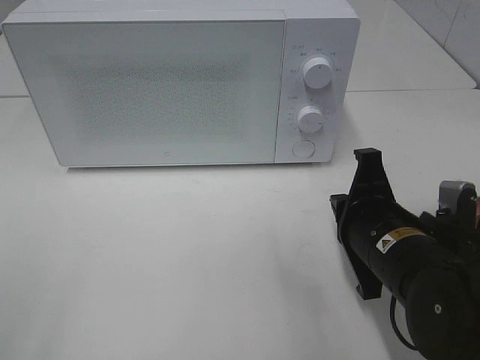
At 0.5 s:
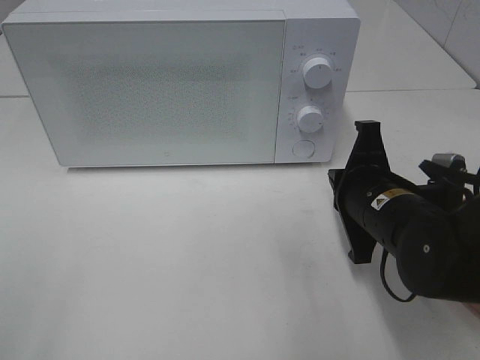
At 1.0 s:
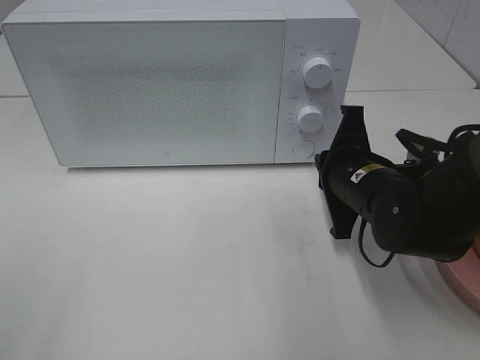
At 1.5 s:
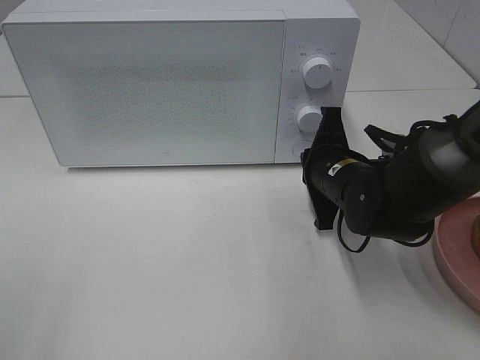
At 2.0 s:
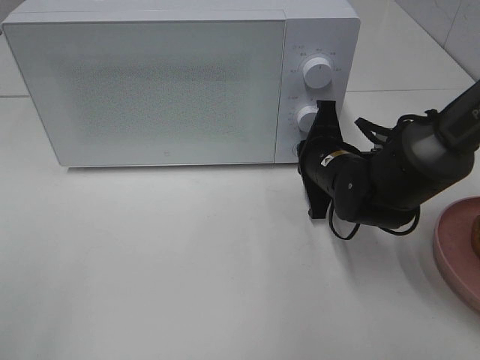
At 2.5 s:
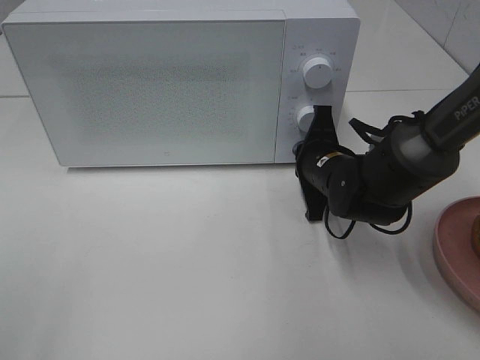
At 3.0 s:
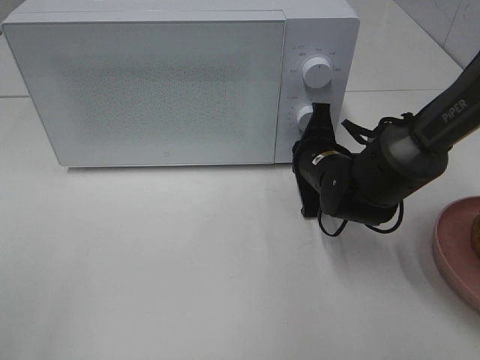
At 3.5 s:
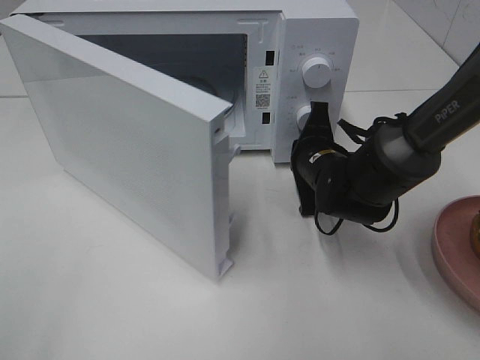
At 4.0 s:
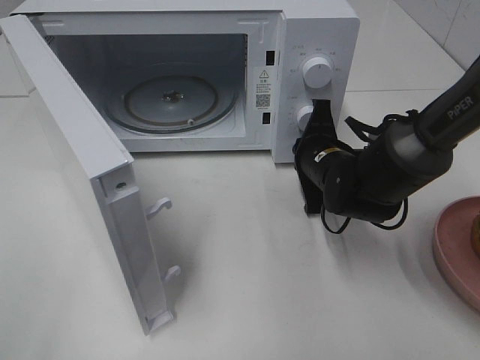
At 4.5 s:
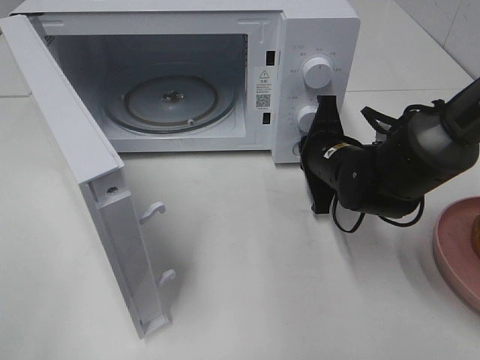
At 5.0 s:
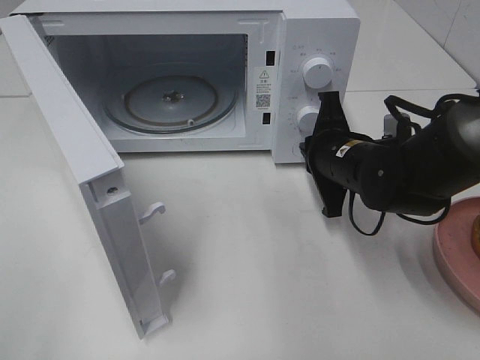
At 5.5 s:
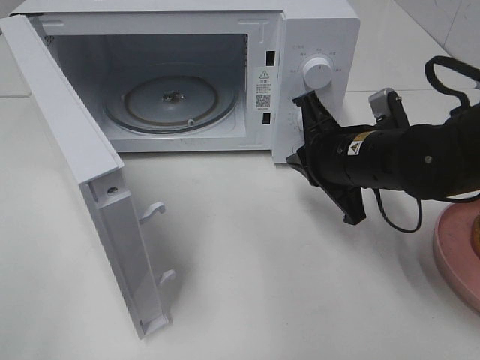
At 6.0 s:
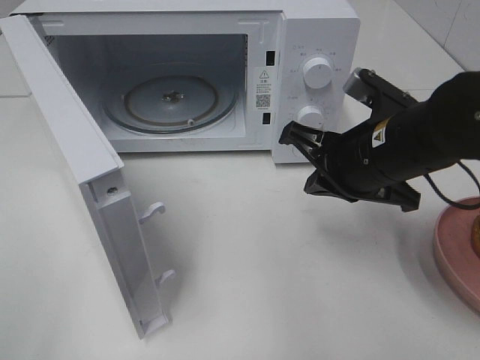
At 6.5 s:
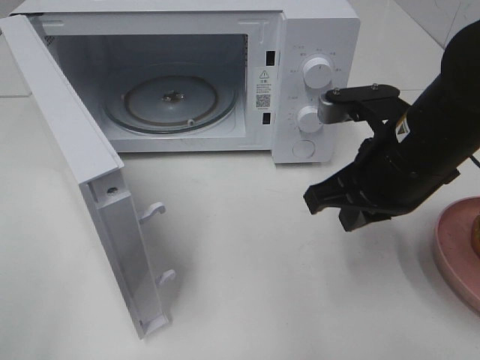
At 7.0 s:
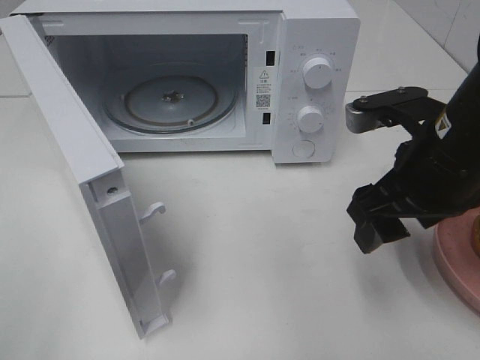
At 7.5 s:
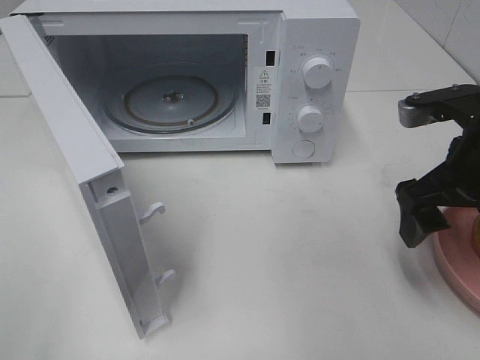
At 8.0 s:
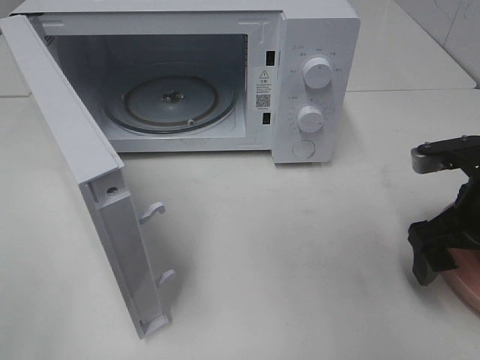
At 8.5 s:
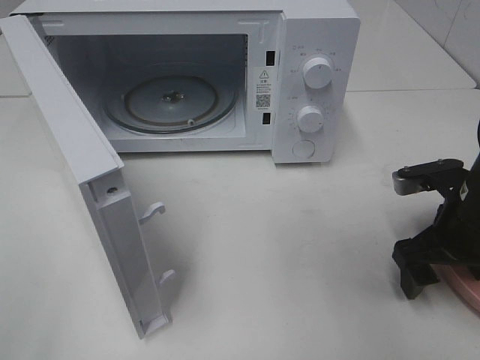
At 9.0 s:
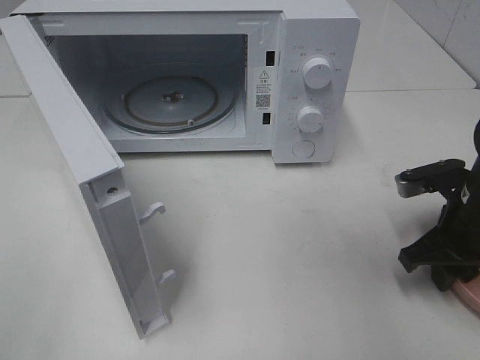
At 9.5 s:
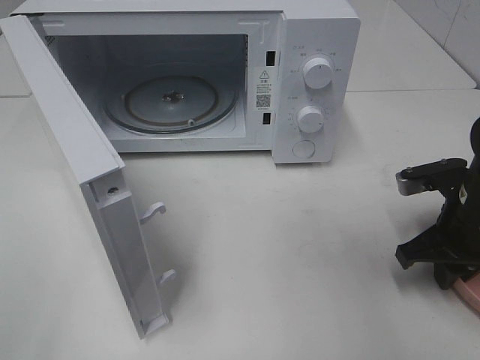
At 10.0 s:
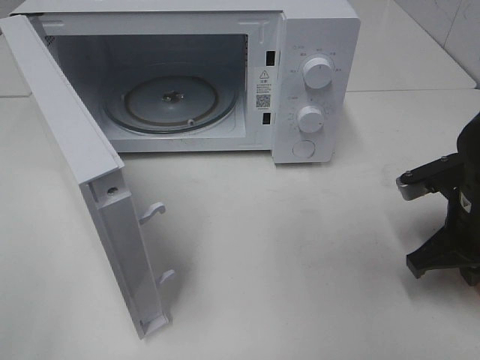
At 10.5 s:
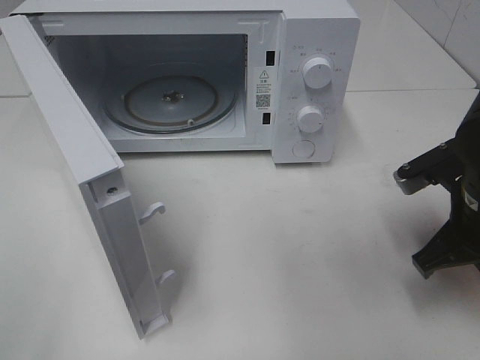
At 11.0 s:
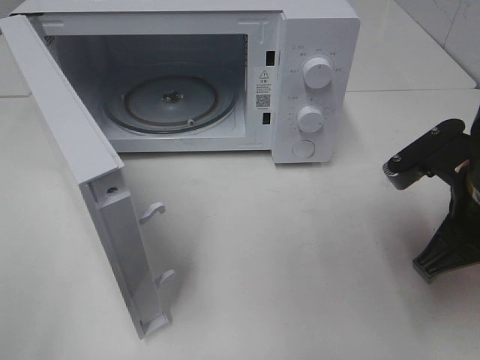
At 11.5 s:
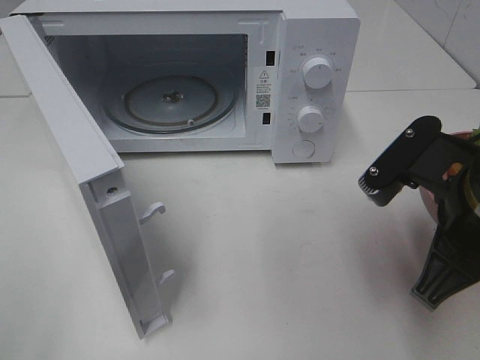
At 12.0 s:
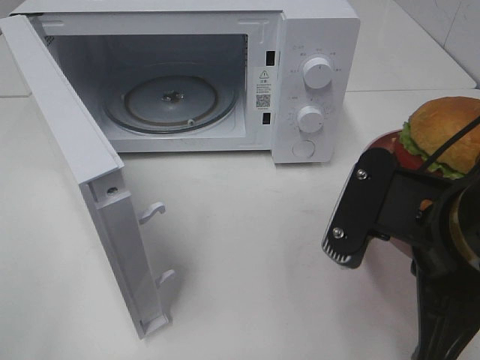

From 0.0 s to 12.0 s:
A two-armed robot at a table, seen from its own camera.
Task of the whole recording: Heat the burger.
Step, from 0.0 s to 3.5 s: Right hand: press the switch.
Step, from 4.0 s to 10.0 s: Right hand: grab the plate with the hamburger.
From 0.0 s to 2.0 s: The right gripper is displaced forward by about 15 cm.
From 4.0 s to 6.0 s: The right gripper goes some 15 cm upward and backward.
From 6.0 s to 8.0 s: The right gripper travels to the right by approximately 10 cm, and opens its fingers.
From 8.0 s to 10.0 s: The right gripper closes up.
From 10.0 s to 12.0 s: The right gripper heads backward, to the left and upward, covering approximately 20 cm.

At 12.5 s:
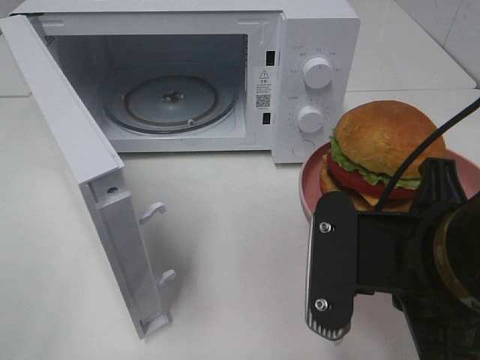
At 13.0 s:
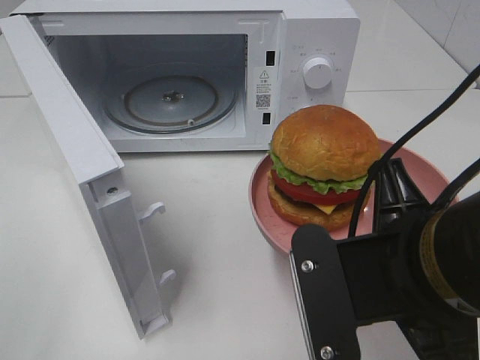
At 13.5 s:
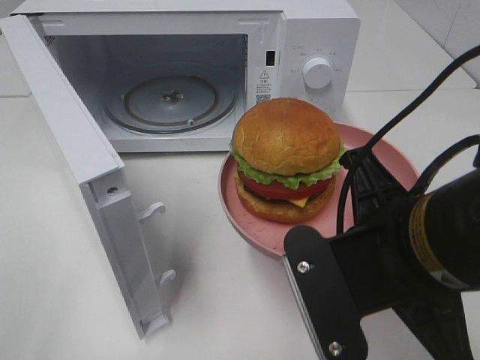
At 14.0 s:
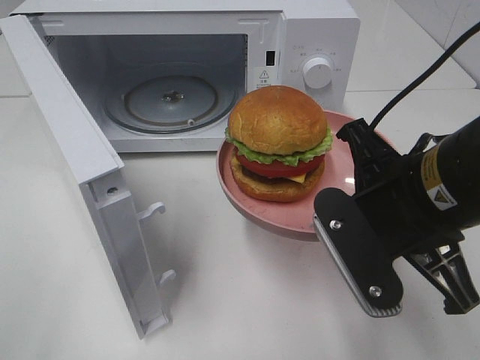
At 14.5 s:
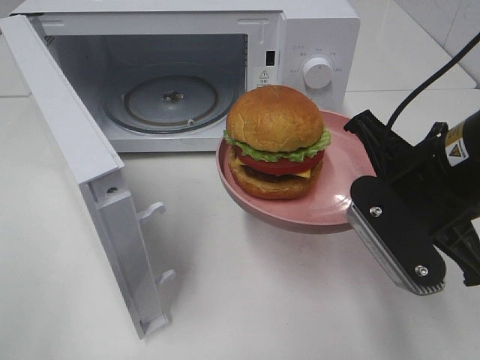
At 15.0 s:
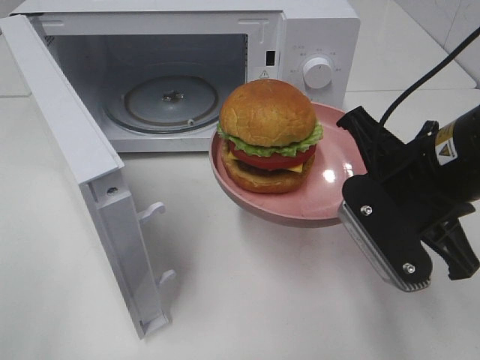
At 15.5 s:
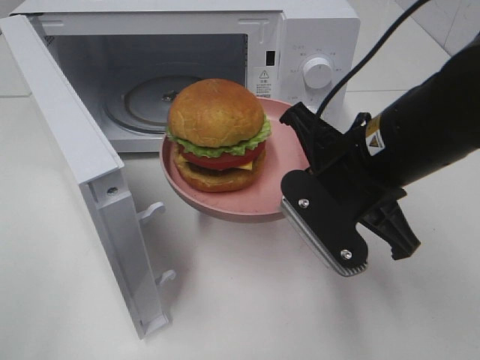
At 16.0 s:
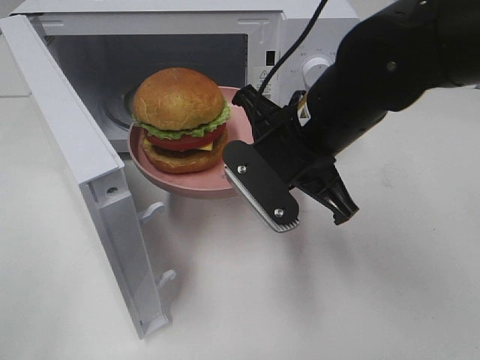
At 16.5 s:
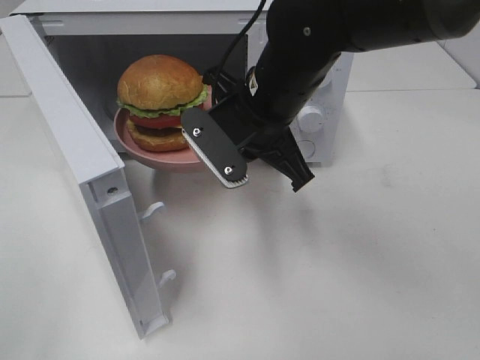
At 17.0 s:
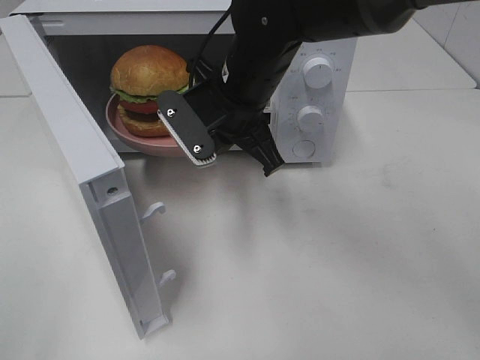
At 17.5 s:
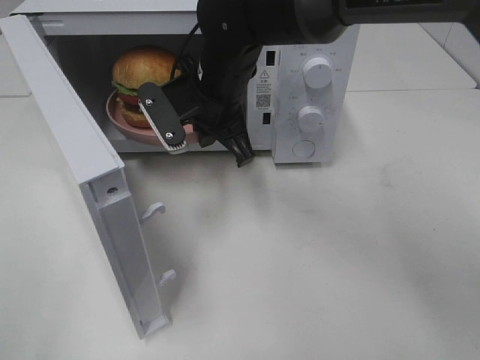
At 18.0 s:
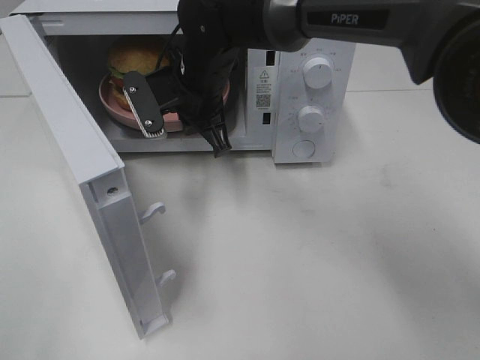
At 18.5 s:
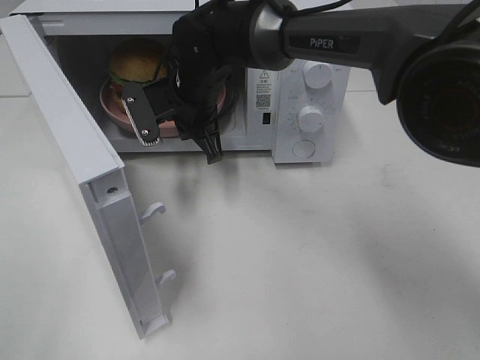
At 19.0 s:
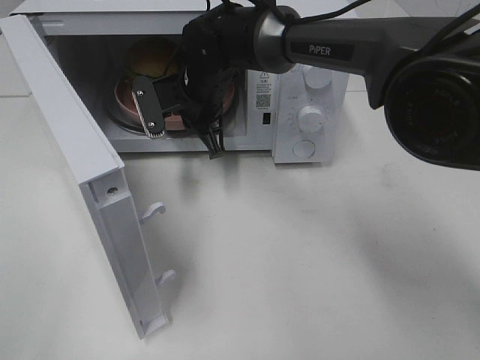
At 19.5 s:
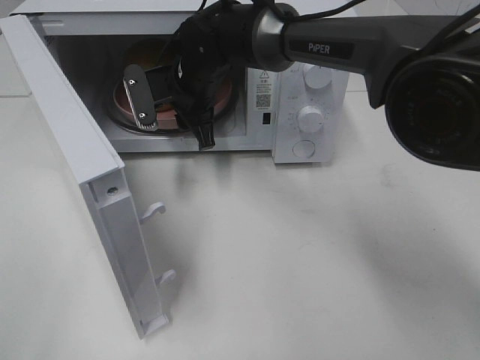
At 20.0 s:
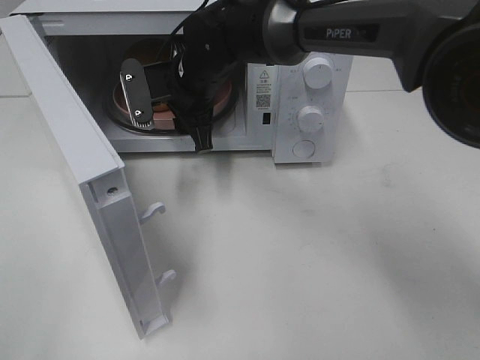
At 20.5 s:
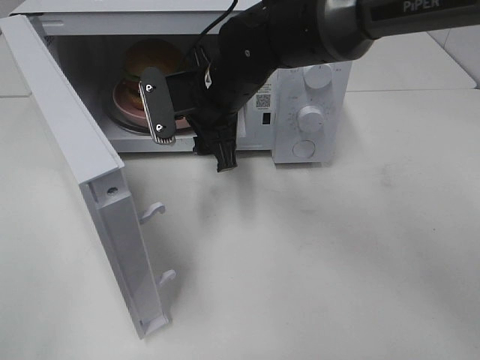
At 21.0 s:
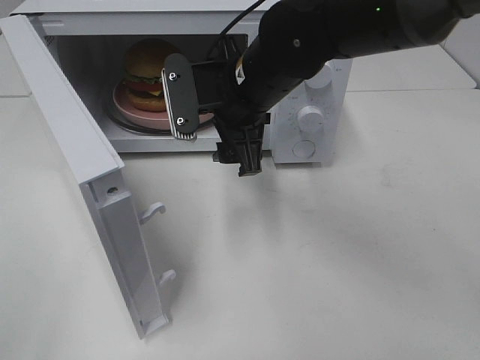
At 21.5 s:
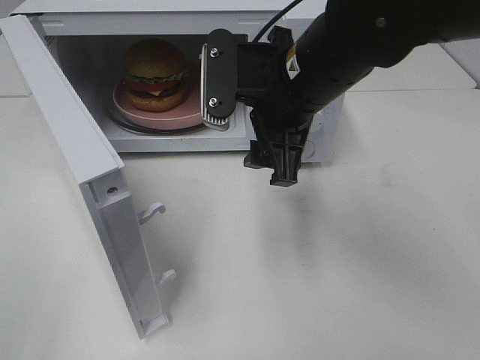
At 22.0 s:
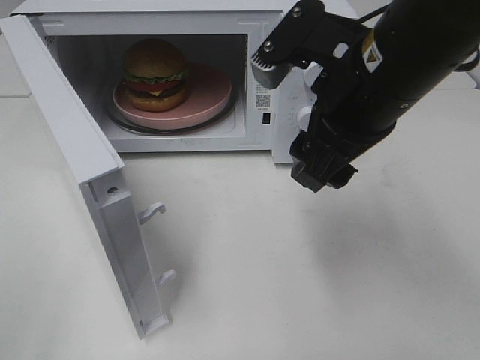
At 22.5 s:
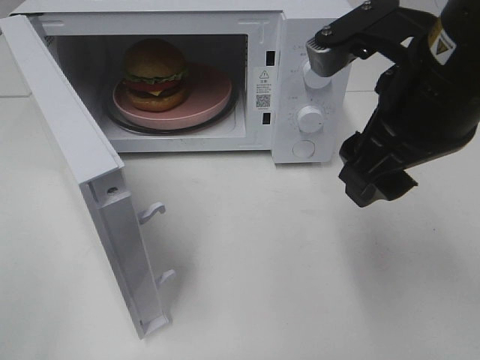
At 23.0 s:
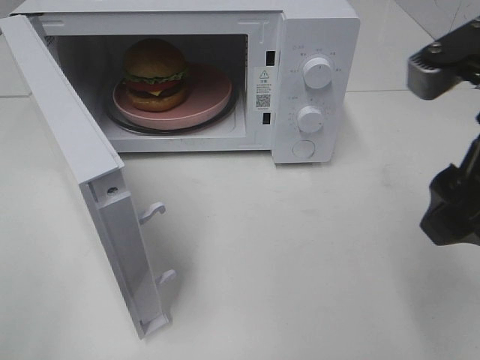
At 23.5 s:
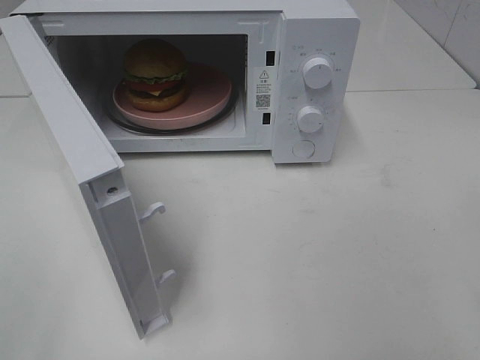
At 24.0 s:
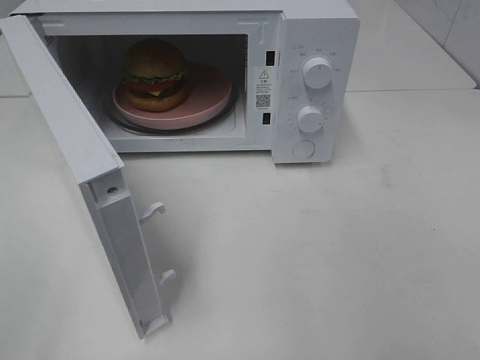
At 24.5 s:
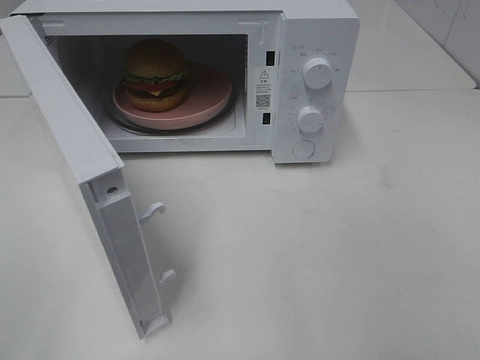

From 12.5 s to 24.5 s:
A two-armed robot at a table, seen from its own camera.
Task of the whole recording: Heat the burger.
Step, from 12.5 s to 20.0 s: Right hand: place the plate in the microwave.
From 12.5 s to 14.5 s: The right gripper heads forward, covering approximately 10 cm.
From 14.5 s to 16.5 s: The right gripper shifts approximately 15 cm to the left and forward.
From 16.5 s to 18.5 s: The right gripper heads forward and to the left, covering roughly 15 cm.
From 18.5 s to 20.5 s: The right gripper moves approximately 5 cm, and opens its fingers.
From 20.5 s to 22.5 s: The right gripper heads backward, to the right and upward, covering roughly 25 cm.
From 22.5 s to 24.5 s: The right gripper heads backward and to the right, covering about 25 cm.

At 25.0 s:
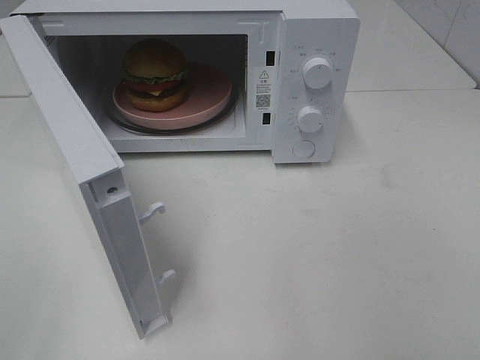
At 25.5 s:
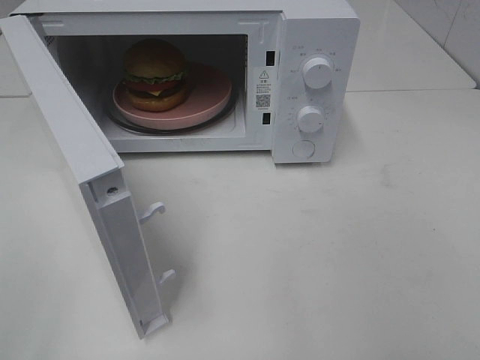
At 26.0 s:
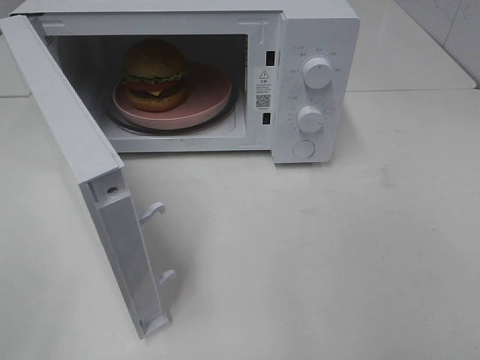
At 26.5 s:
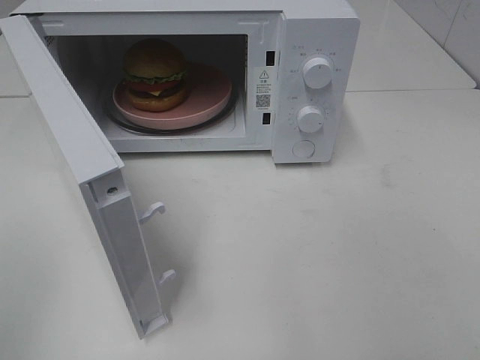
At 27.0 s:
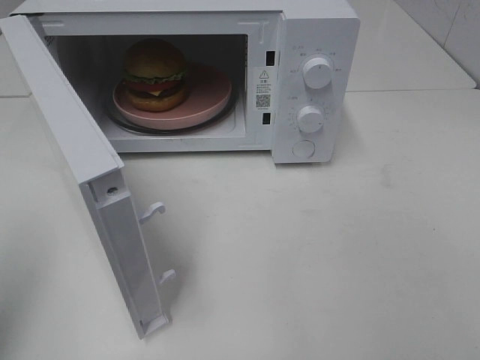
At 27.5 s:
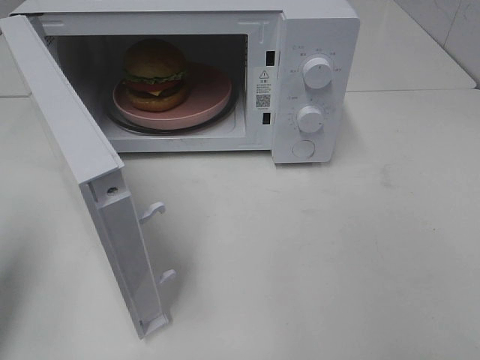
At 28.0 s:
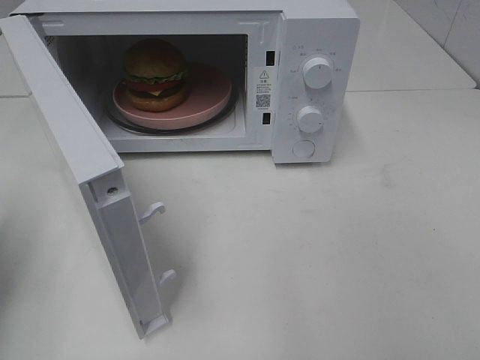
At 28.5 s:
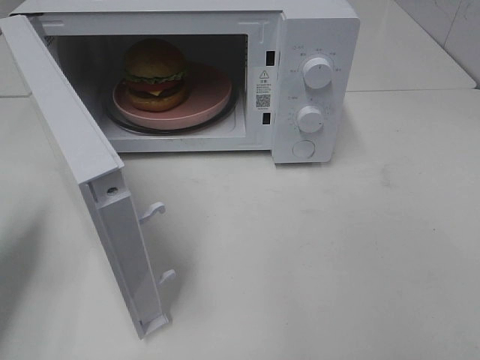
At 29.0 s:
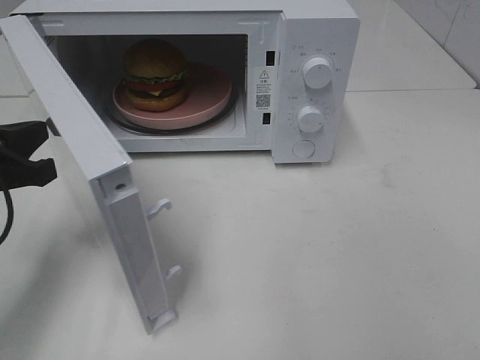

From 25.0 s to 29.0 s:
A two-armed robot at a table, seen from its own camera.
Task of the whole recording: Heat the burger.
From 25.0 s to 27.0 s: The left gripper is displaced forward by some 10 cm, and closes its fingers.
From 27.0 s to 29.0 s: The left gripper travels downward, forward and to the right by some 20 cm.
